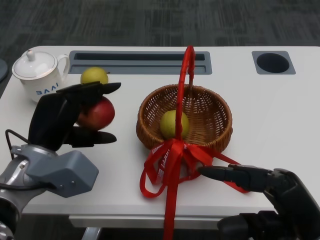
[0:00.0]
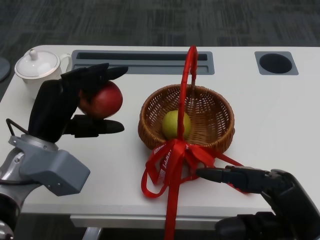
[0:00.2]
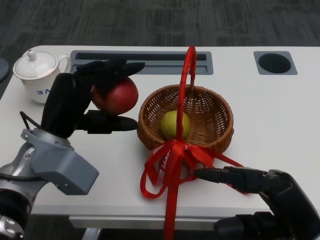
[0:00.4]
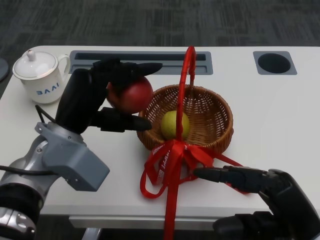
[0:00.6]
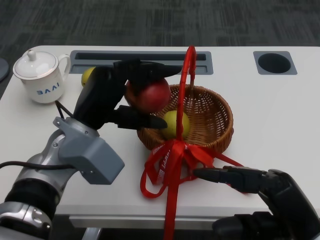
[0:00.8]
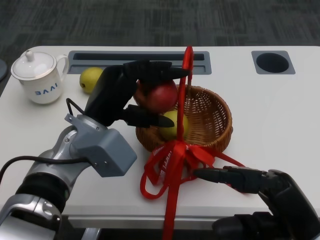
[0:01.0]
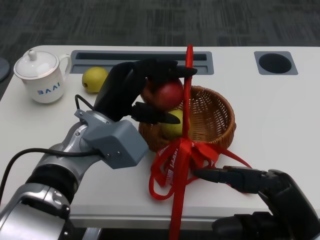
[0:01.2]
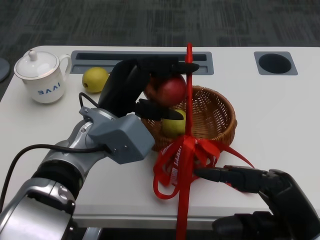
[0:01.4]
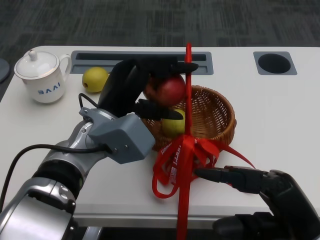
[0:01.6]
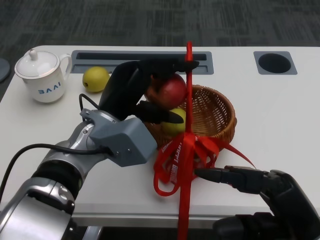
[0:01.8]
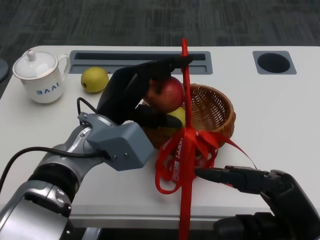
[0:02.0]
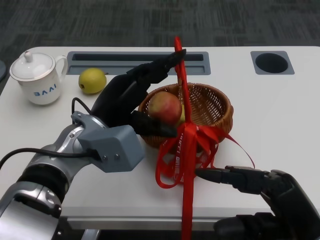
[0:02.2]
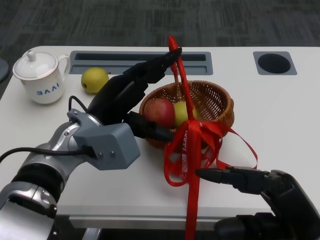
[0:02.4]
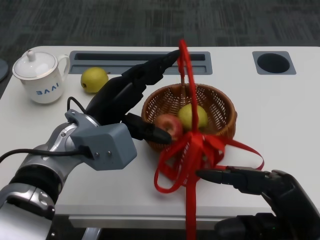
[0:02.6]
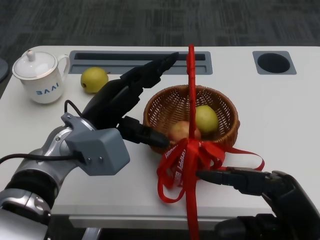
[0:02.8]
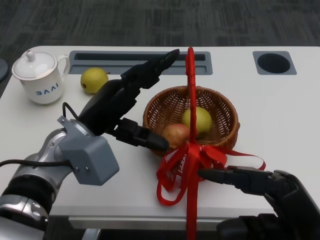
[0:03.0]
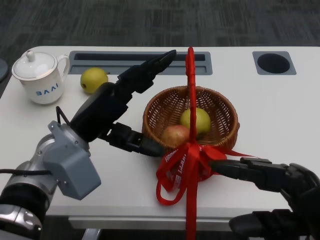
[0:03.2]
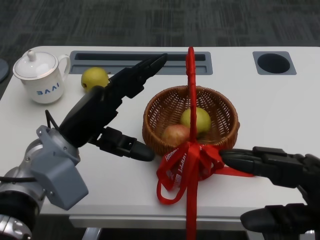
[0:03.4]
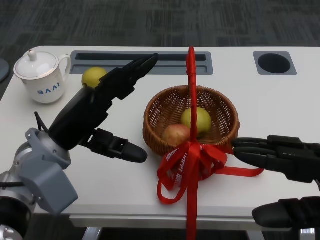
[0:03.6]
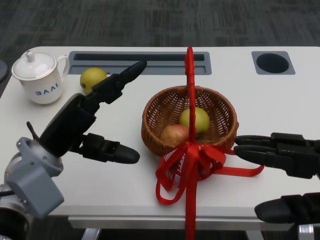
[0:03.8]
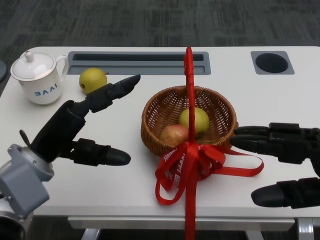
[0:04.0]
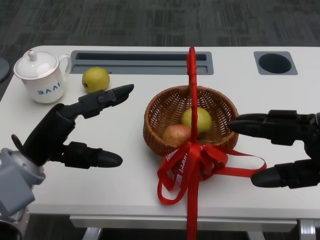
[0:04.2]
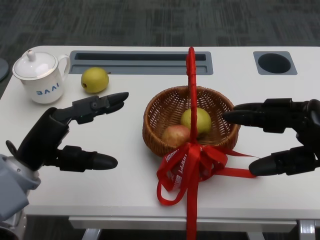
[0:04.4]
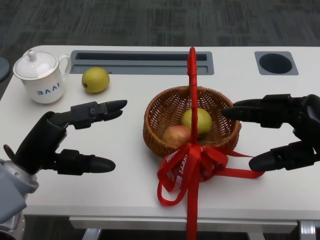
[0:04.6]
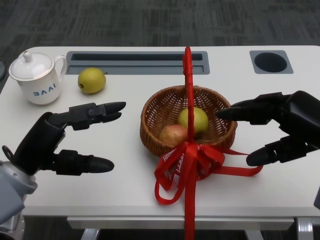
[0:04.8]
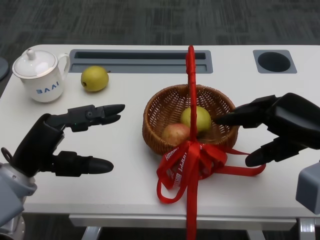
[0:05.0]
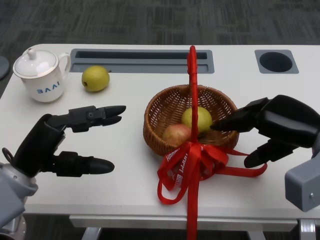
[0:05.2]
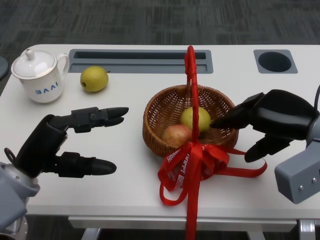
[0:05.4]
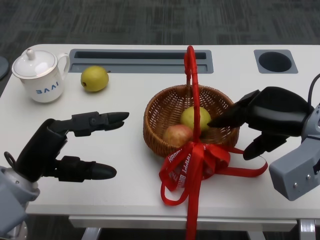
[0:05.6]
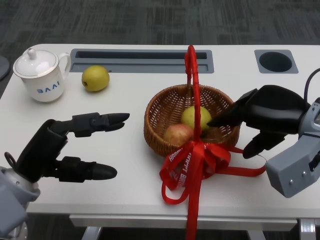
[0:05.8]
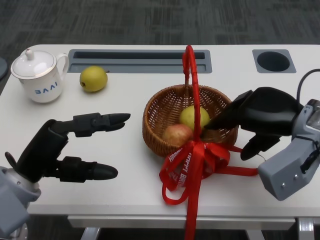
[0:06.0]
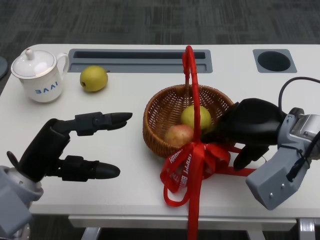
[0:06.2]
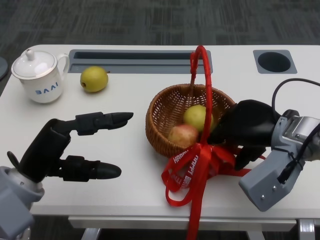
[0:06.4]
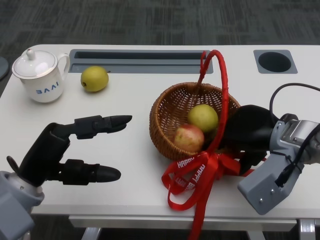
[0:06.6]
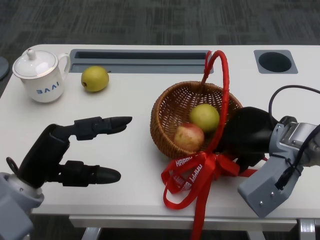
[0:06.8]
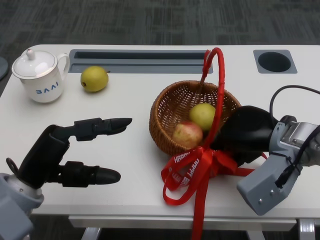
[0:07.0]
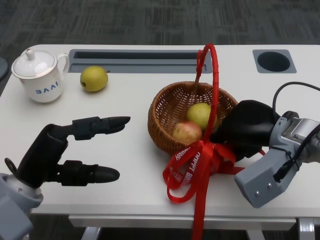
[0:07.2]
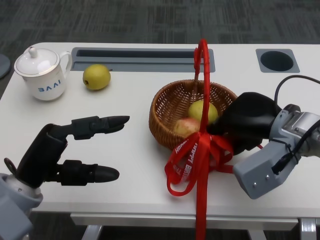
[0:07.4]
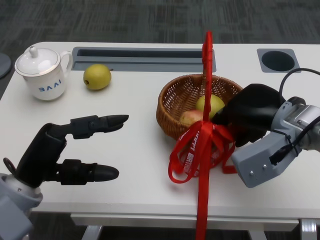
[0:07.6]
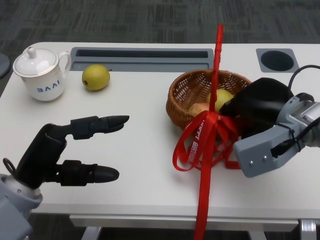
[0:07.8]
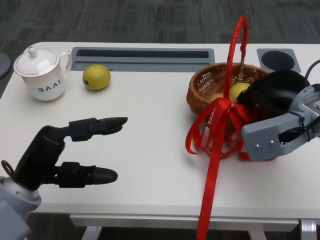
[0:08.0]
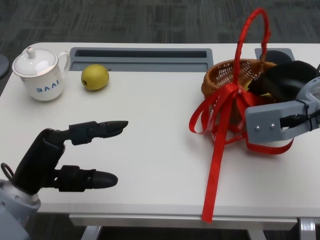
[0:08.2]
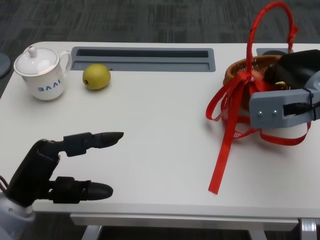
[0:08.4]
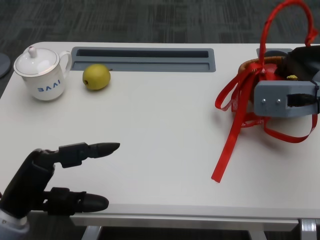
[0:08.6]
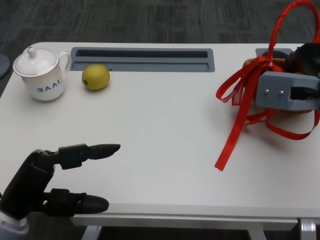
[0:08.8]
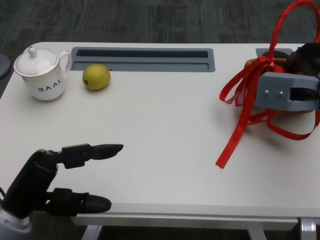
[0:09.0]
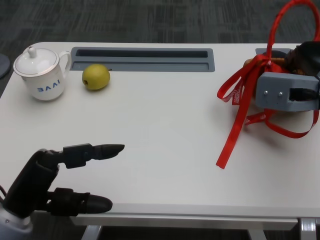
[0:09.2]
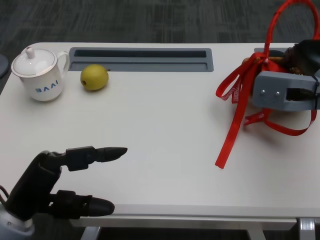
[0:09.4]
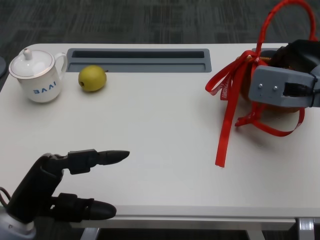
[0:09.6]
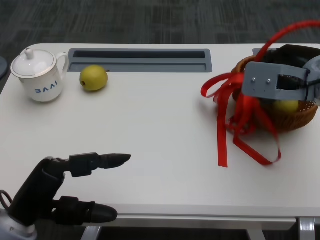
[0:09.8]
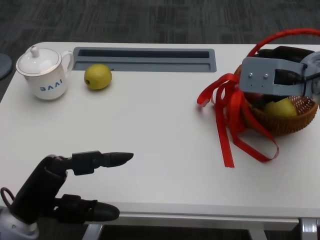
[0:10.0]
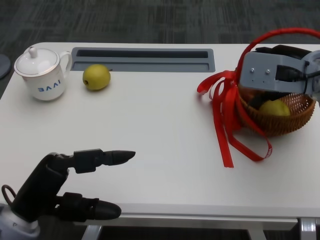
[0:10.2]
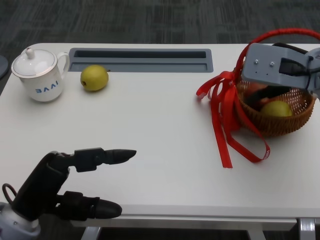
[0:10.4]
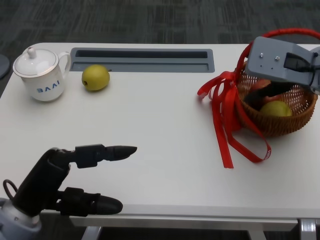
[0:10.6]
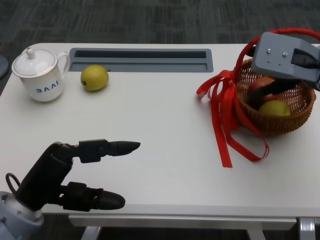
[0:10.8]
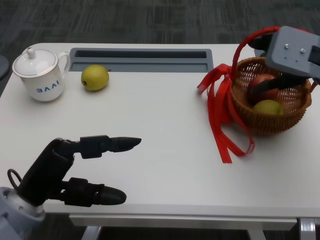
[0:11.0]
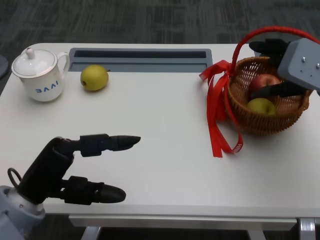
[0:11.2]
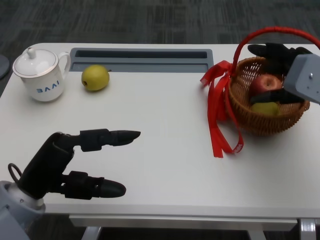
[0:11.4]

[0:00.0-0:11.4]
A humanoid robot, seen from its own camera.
Step, 0:00.0 to 0:01.4: Place the apple into the basket with the left gripper.
Step, 0:01.6 to 0:04.6: Grasp the basket with the right gripper.
Step, 0:04.8 to 0:07.2: Move the basket to the front of the table with the right gripper.
0:00.0 to 0:01.4: The left hand shifts some 10 cm to the right.
0:02.8 to 0:04.2: The left hand moves to the left, approximately 10 cm, while the right hand shifts some 5 cm to the right.
0:04.2 to 0:05.6: The right hand goes about 10 cm forward.
0:07.2 to 0:08.6: The right hand heads upward, covering approximately 5 cm.

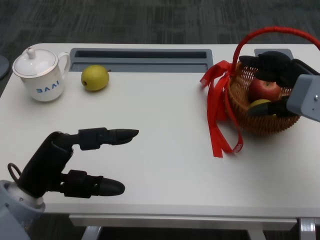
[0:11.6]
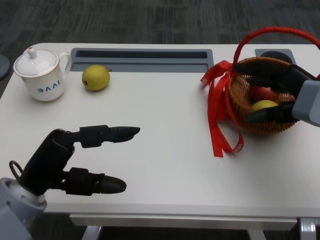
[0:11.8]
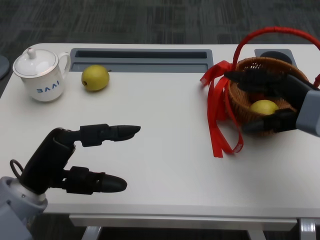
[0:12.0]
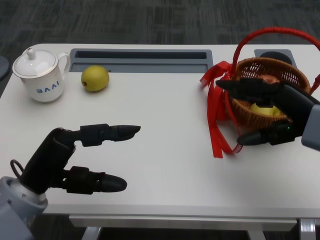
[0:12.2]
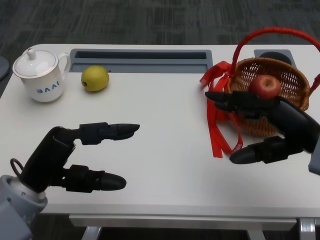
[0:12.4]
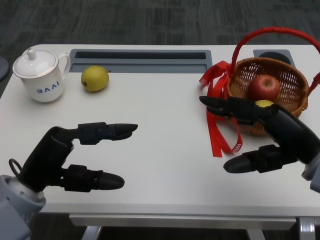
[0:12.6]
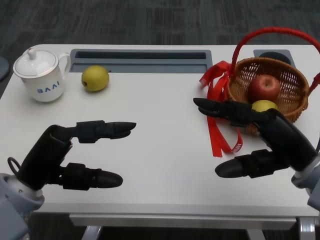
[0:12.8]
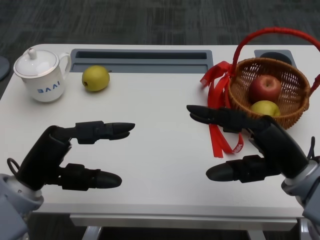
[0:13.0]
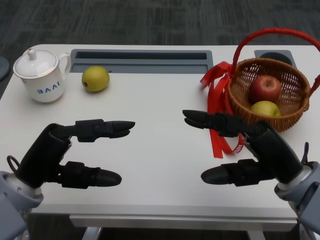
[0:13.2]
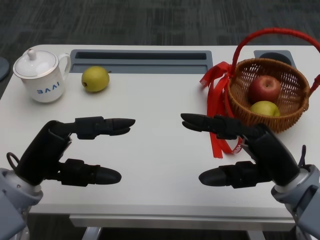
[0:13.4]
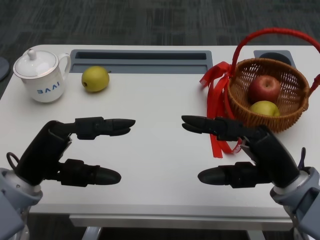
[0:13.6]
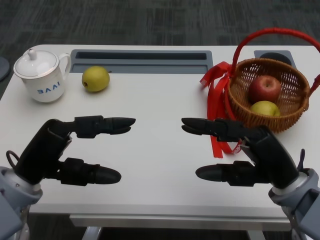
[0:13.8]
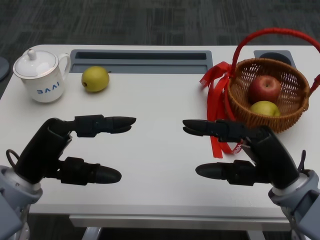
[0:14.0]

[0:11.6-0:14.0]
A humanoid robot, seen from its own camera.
0:11.6 to 0:12.8: The right hand is displaced backward by about 10 cm.
0:12.8 to 0:14.0: The hands make only small movements.
